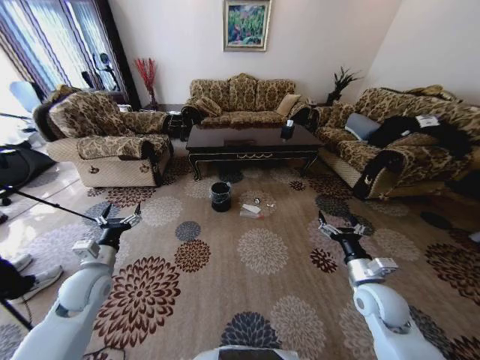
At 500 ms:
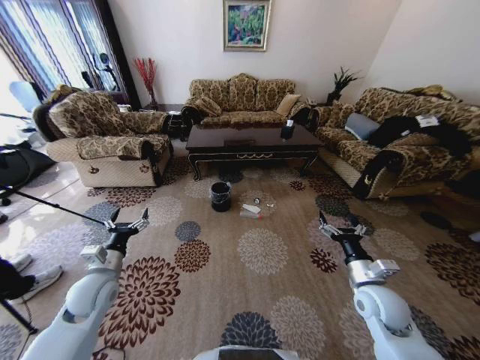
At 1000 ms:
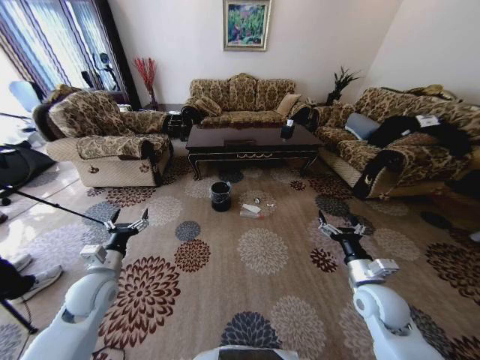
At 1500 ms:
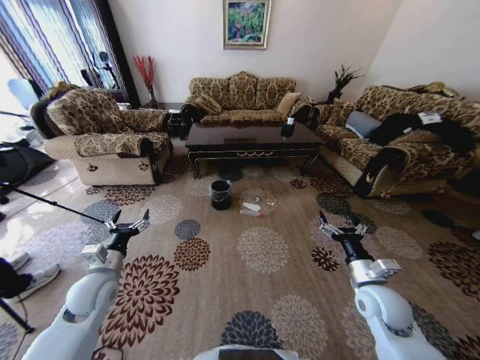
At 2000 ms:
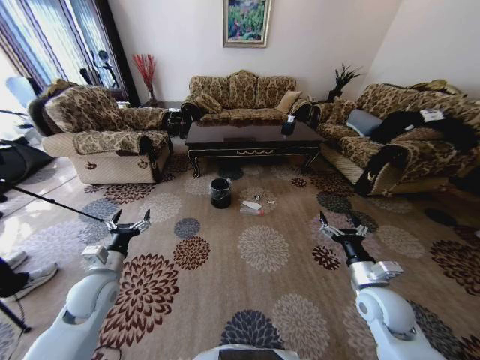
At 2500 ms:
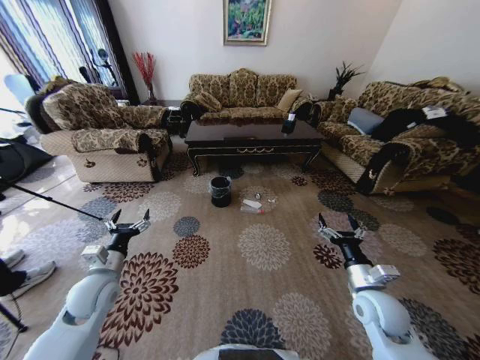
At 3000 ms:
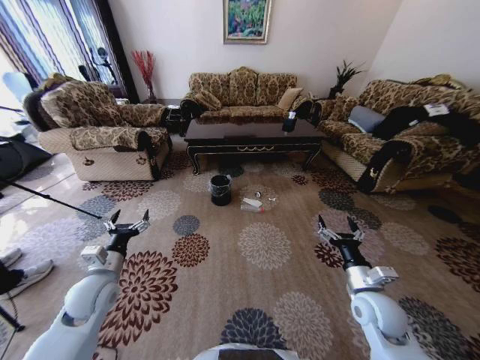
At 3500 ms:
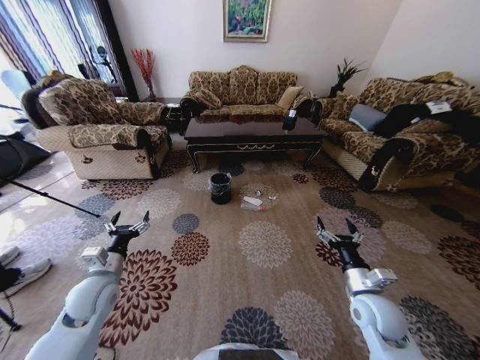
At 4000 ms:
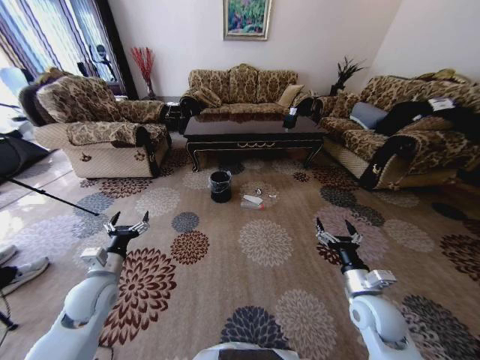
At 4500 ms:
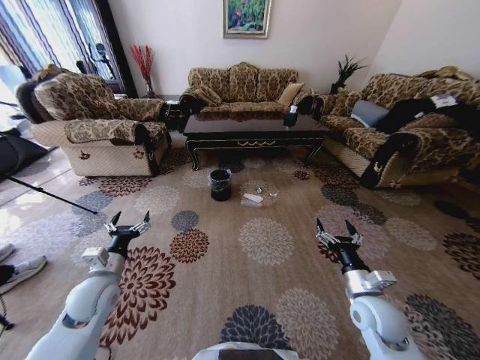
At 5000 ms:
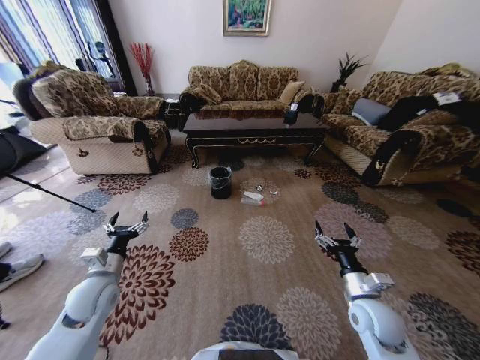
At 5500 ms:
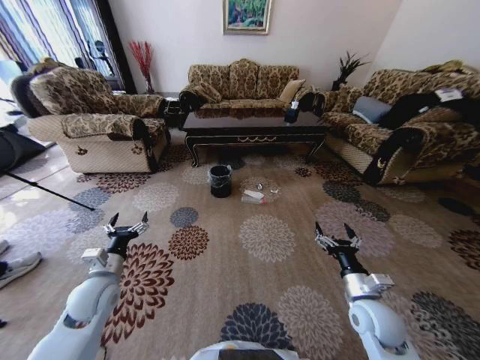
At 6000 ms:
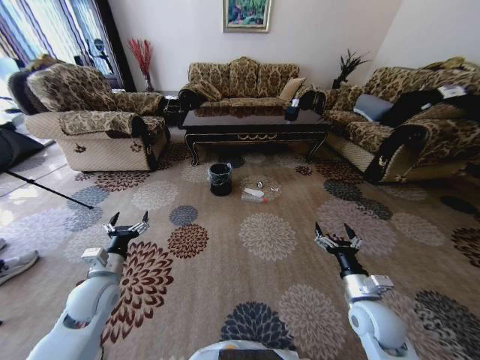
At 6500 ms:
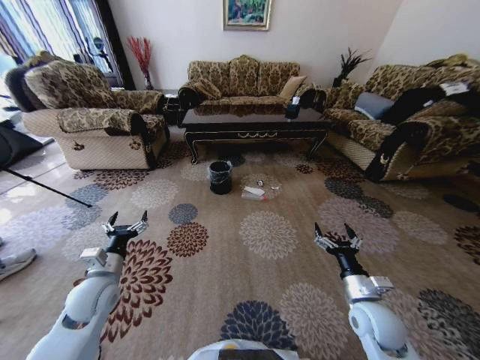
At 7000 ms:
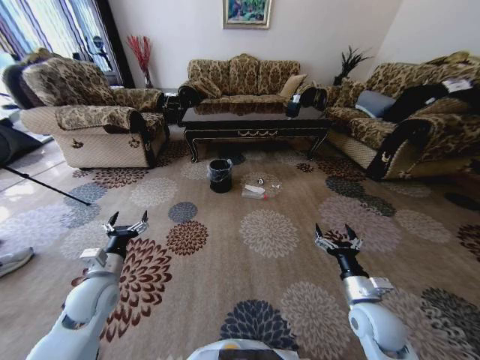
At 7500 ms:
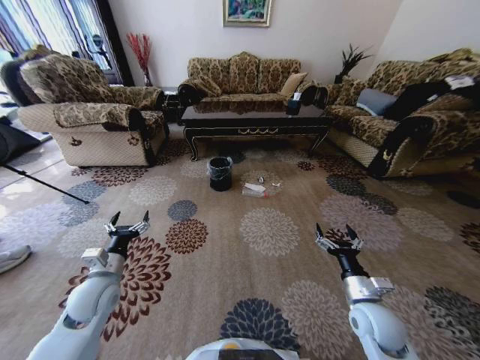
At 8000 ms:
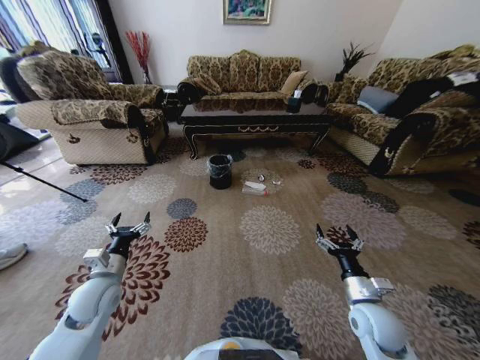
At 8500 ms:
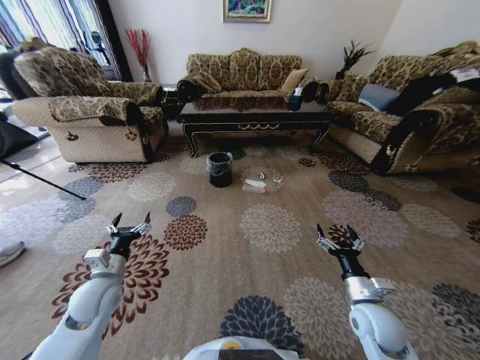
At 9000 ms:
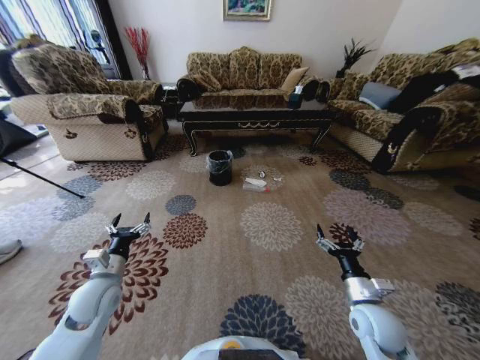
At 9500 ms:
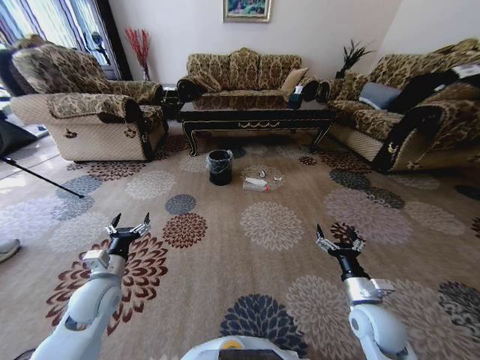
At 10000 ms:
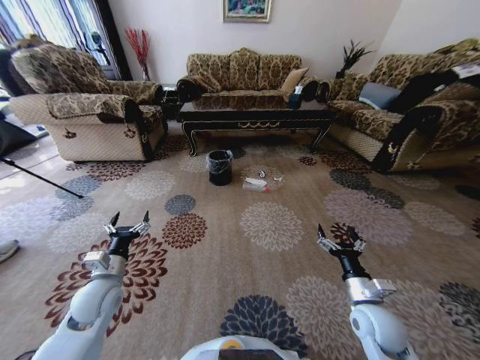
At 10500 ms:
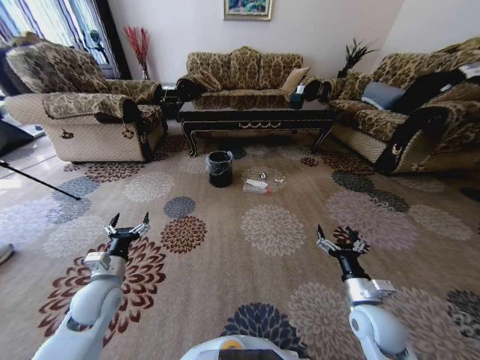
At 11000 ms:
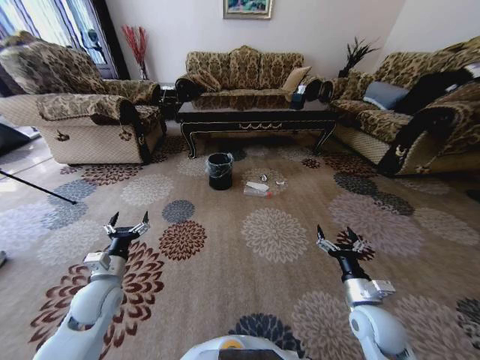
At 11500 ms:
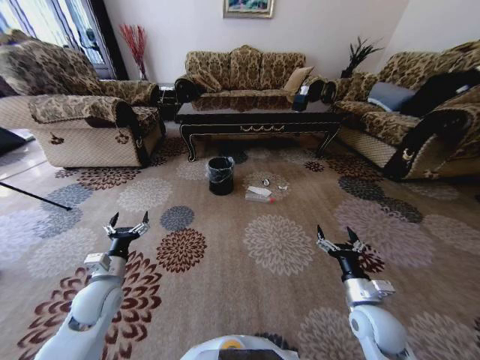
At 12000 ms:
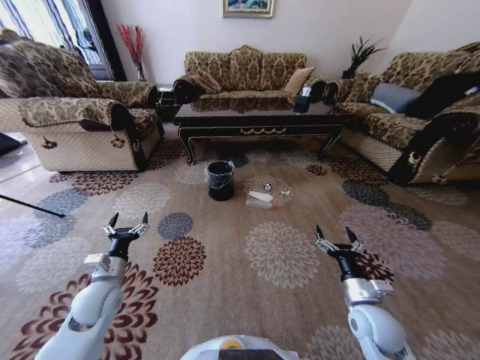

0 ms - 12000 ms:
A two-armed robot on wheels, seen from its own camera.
Task of the whole recording: Move to the front of the table and pick up the trash from the floor, then place it into the trash bin.
8000 ms - 10000 ms: The two grippers keep their place.

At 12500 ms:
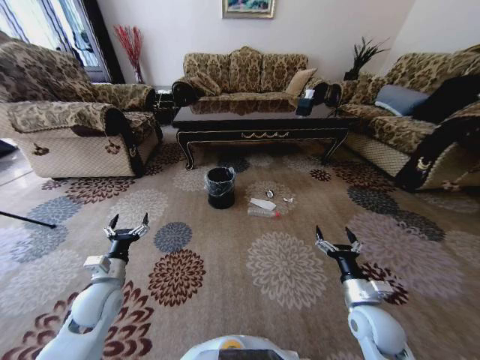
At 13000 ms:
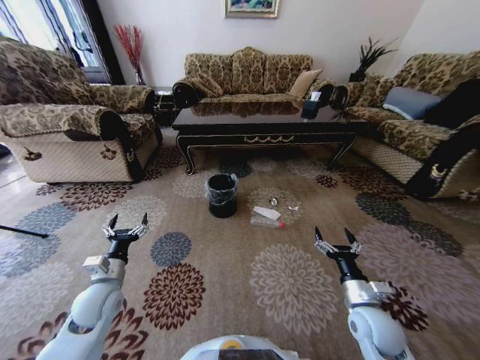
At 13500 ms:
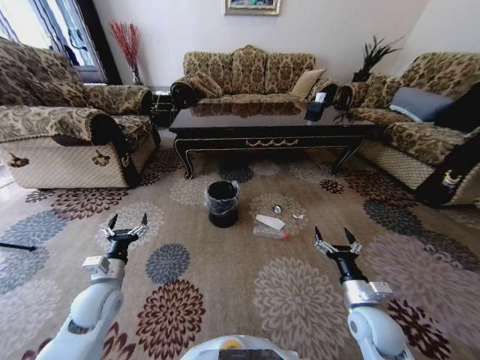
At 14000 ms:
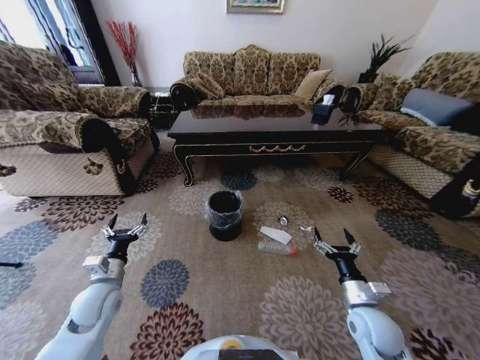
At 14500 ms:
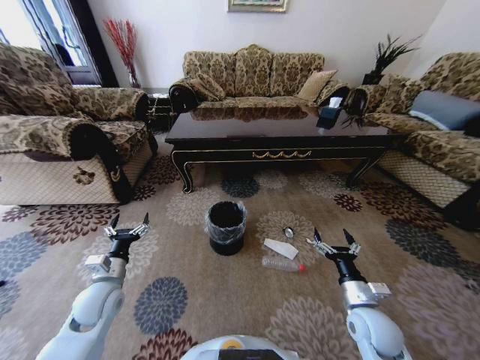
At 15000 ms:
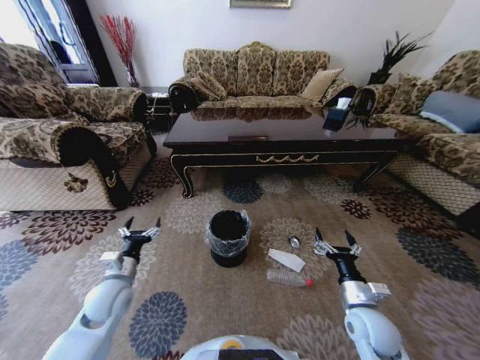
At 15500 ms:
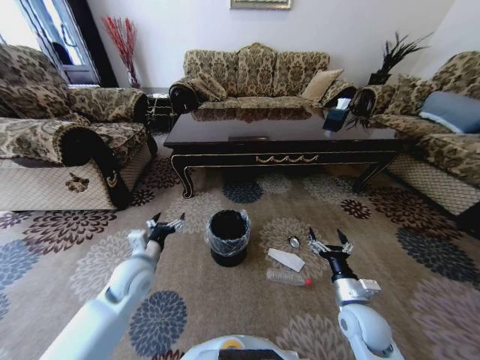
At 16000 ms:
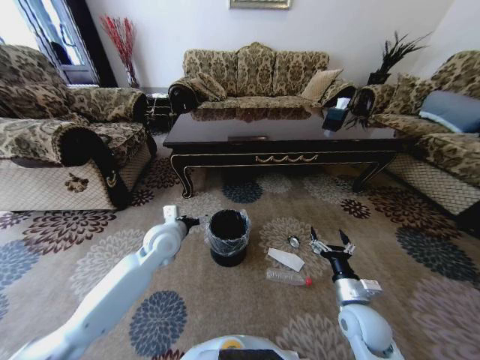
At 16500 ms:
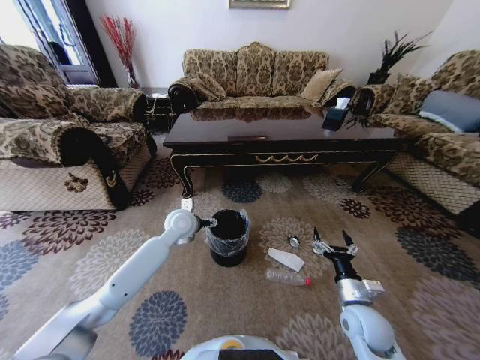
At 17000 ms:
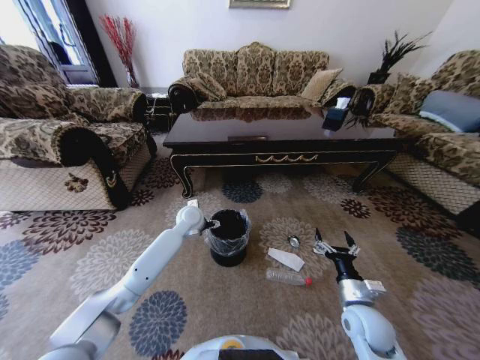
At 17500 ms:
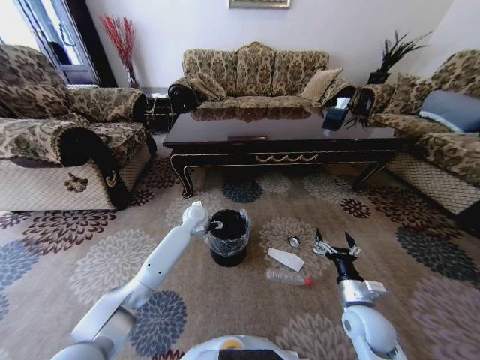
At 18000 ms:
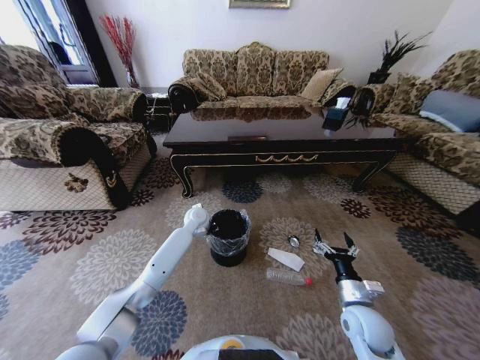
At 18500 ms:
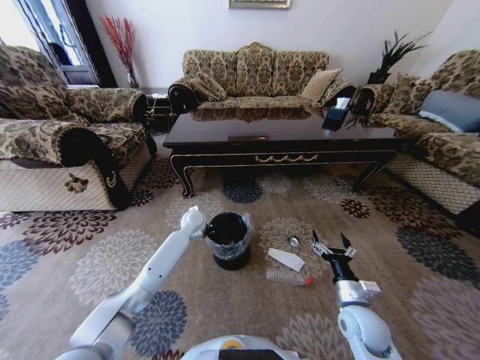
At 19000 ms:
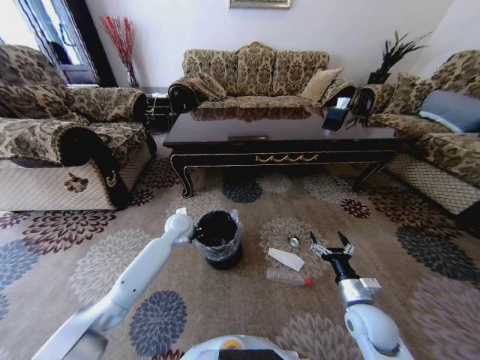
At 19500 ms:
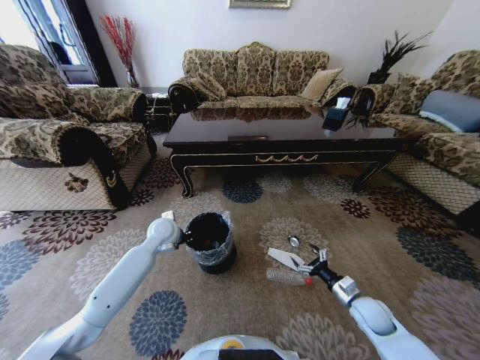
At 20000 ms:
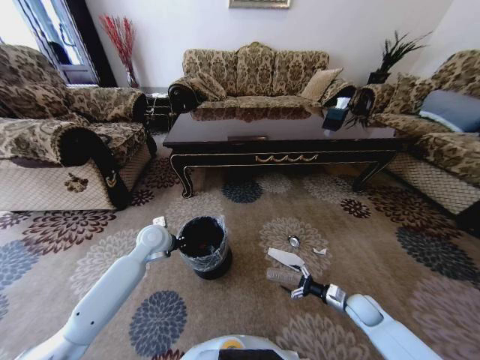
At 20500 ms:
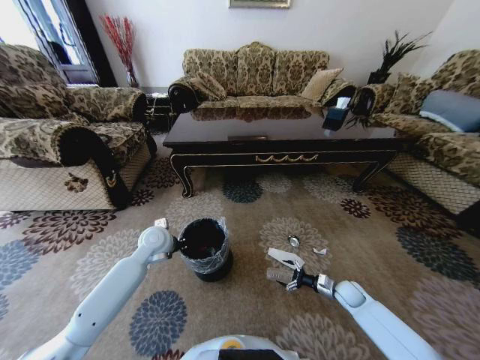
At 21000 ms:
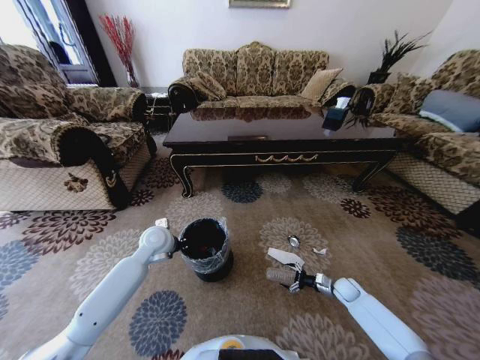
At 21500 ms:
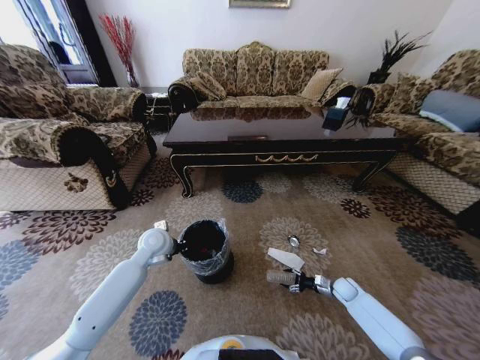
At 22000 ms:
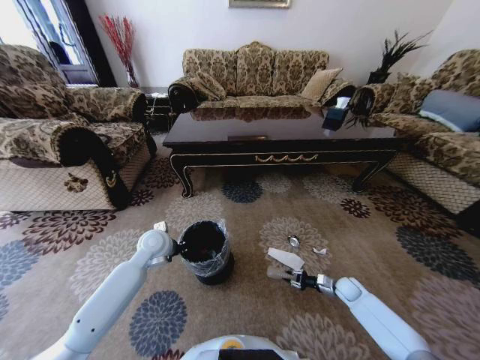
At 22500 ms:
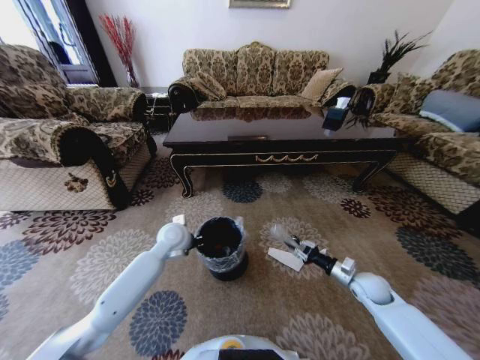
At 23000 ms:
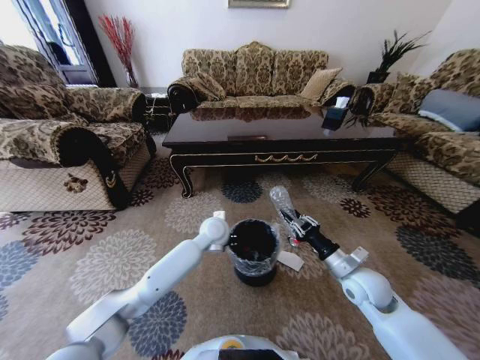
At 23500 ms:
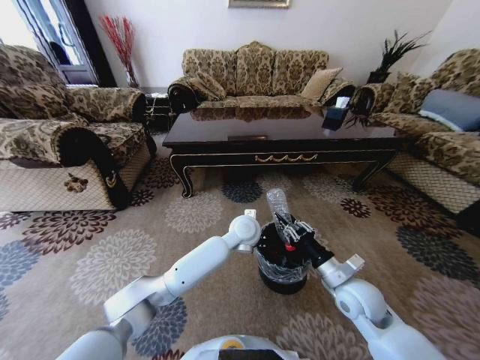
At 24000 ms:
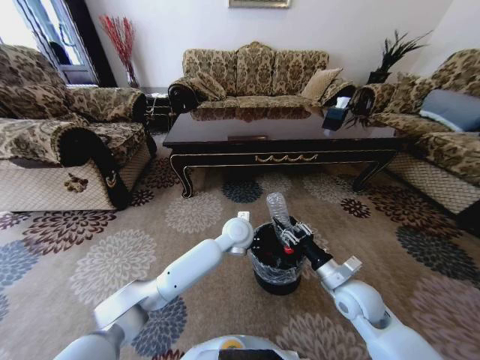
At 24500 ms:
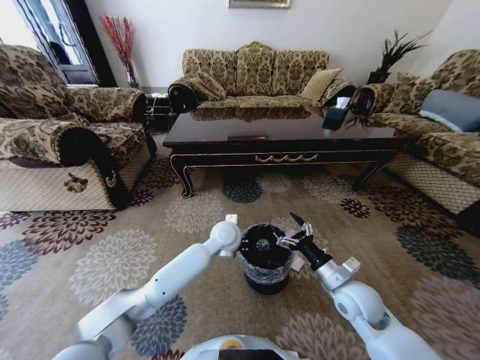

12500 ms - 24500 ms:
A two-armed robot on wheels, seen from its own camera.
Task of the whole recording: Move to the front of the table and pick up the trash from the floor, then place it into the trash bin.
14500 ms - 16500 ms: The left gripper shifts roughly 25 cm forward, to the right and upward.
16500 ms - 18500 ms: The left gripper travels downward and forward by roughly 10 cm, and closes its fingers.
18500 ms - 20500 ms: The right gripper is displaced downward, forward and to the right by about 20 cm. Meanwhile the left gripper shifts about 15 cm backward and to the left.
20500 ms - 22500 ms: The left gripper shifts some 5 cm to the right; the right gripper shifts some 10 cm upward, and closes its fingers.
22500 ms - 24500 ms: The left gripper is displaced to the right by approximately 15 cm, while the right gripper goes approximately 15 cm to the left, upward and backward, and opens its fingers.

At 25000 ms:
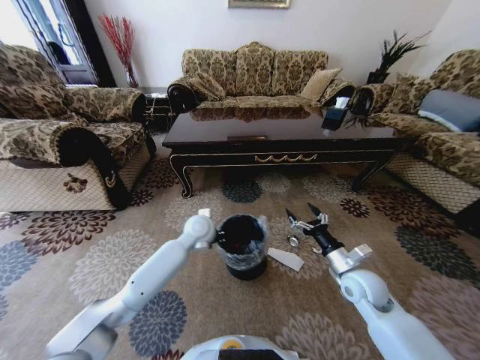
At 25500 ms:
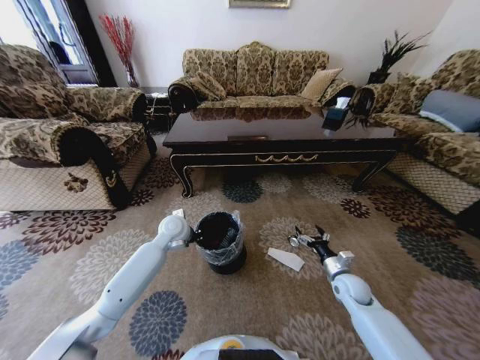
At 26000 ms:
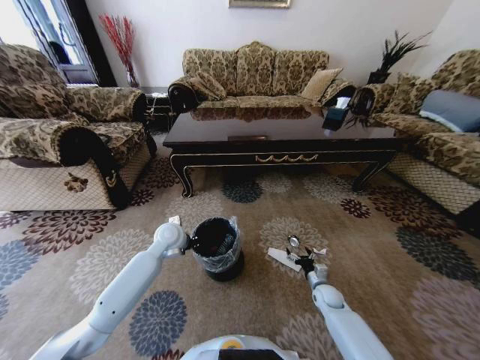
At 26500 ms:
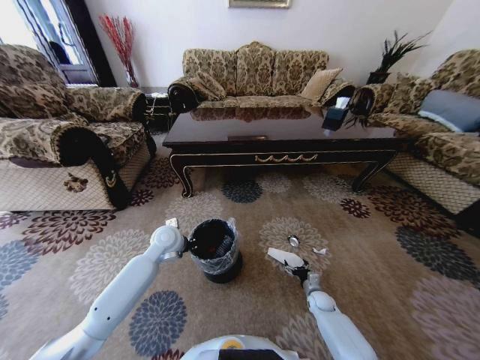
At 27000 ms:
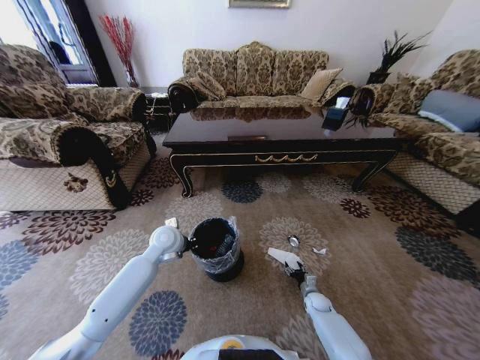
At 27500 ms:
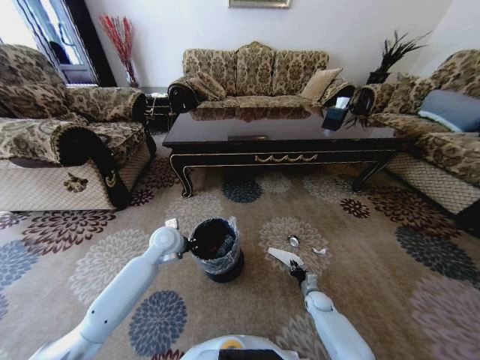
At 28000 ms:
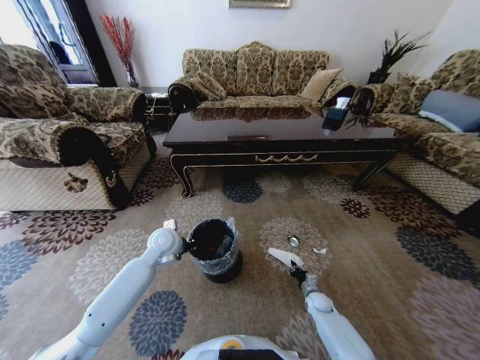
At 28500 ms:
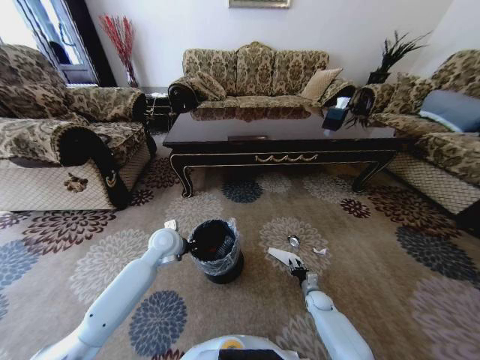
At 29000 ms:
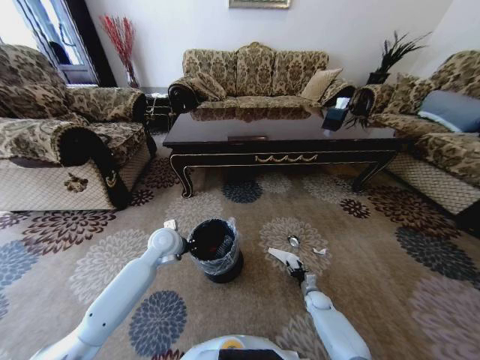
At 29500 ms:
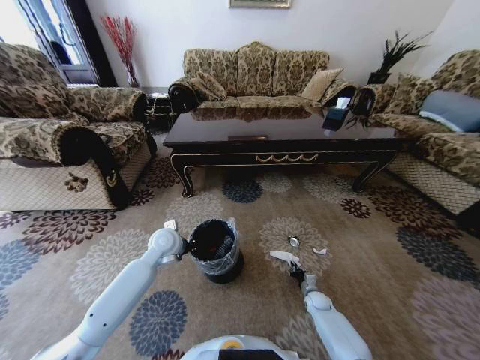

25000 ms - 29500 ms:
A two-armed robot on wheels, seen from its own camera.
Task of the whole recording: Move to the front of the table and pick up the trash from the floor, then place it into the trash bin.
25000 ms - 27000 ms: The left gripper travels to the left by approximately 10 cm, while the right gripper travels downward by roughly 30 cm.
27000 ms - 29500 ms: The right gripper closes up.
